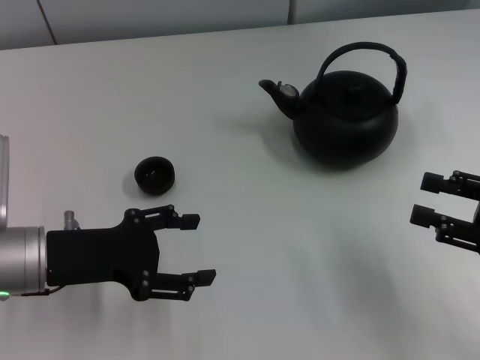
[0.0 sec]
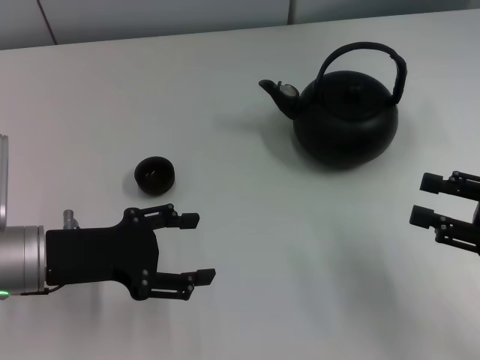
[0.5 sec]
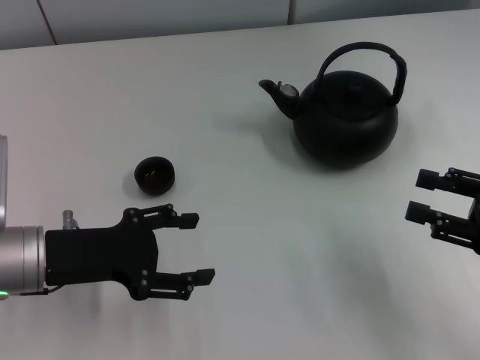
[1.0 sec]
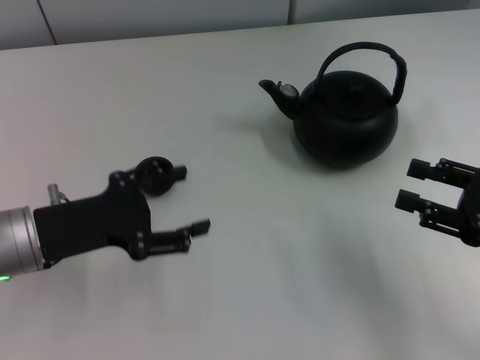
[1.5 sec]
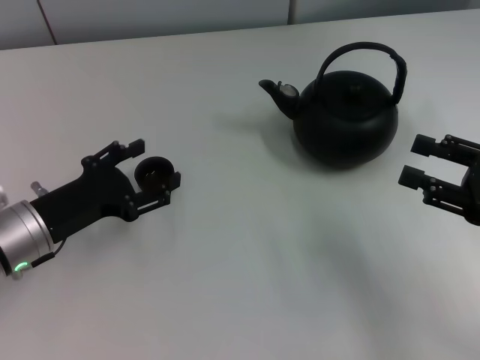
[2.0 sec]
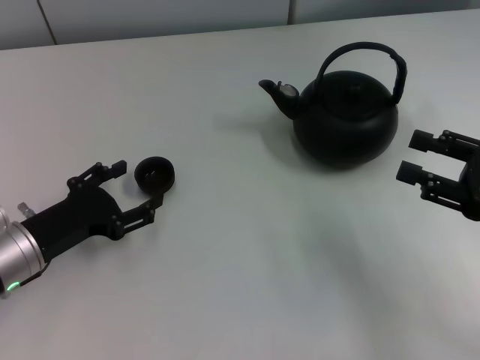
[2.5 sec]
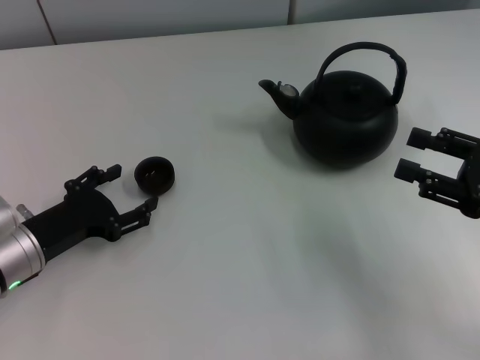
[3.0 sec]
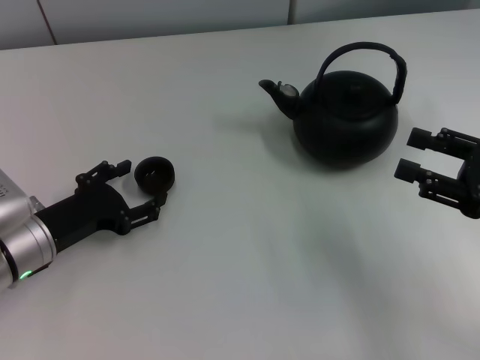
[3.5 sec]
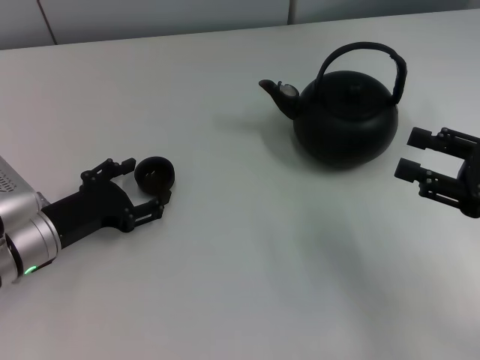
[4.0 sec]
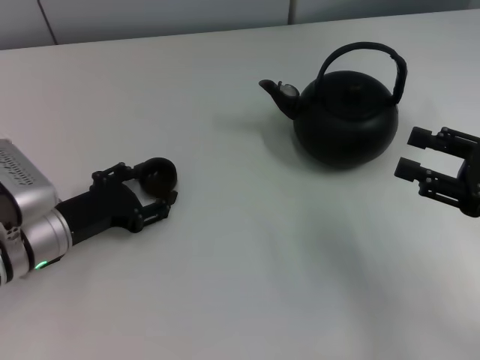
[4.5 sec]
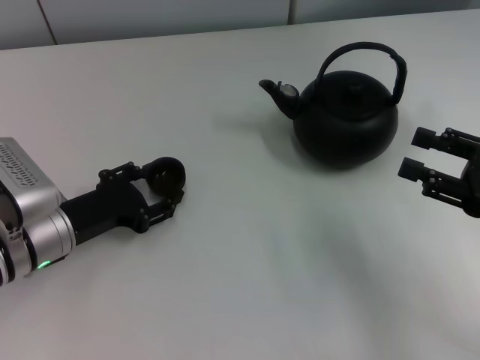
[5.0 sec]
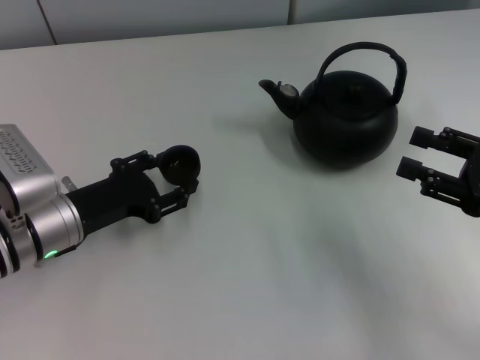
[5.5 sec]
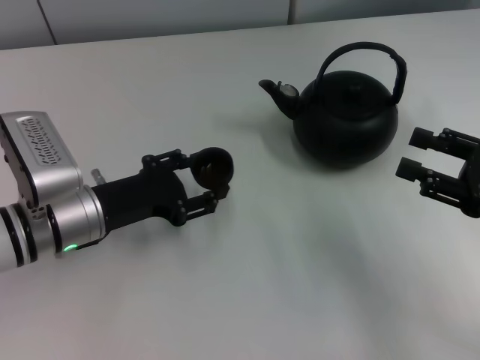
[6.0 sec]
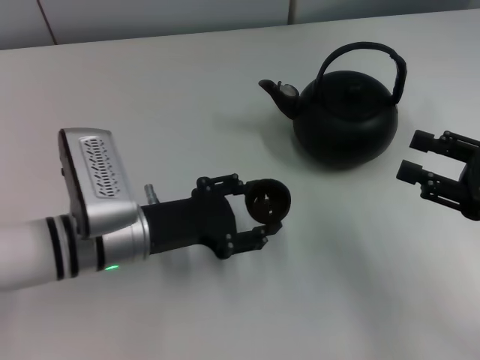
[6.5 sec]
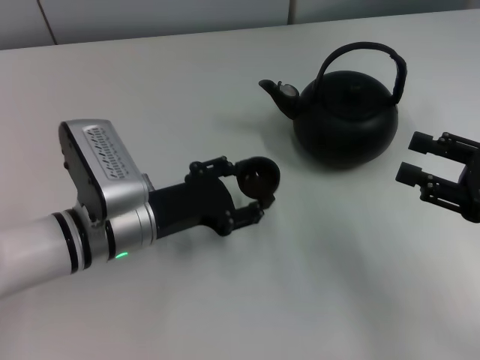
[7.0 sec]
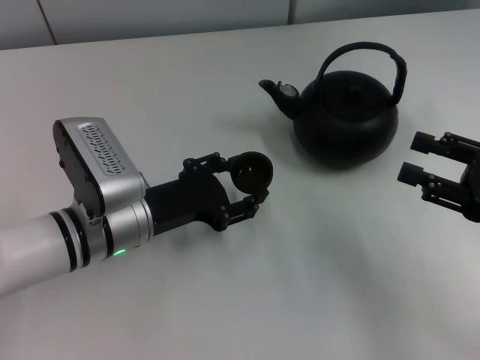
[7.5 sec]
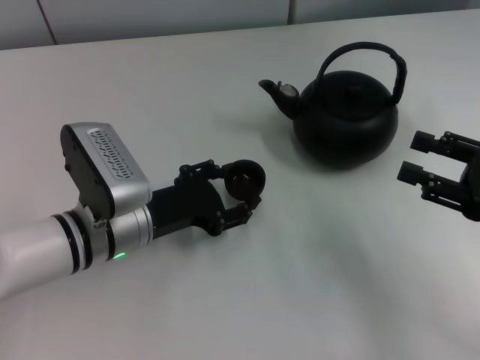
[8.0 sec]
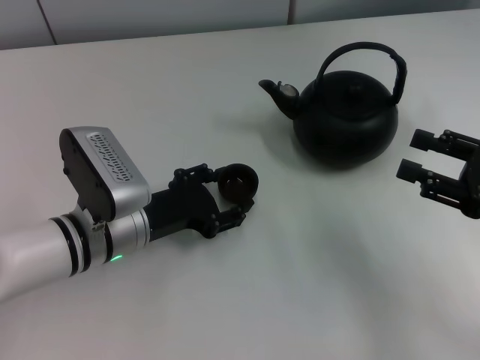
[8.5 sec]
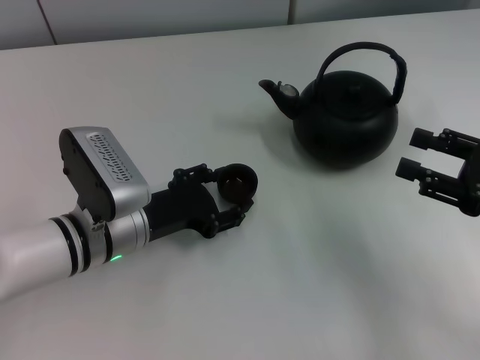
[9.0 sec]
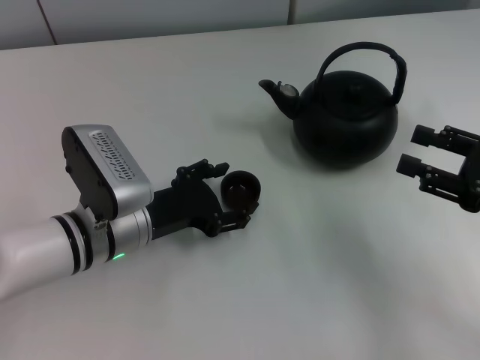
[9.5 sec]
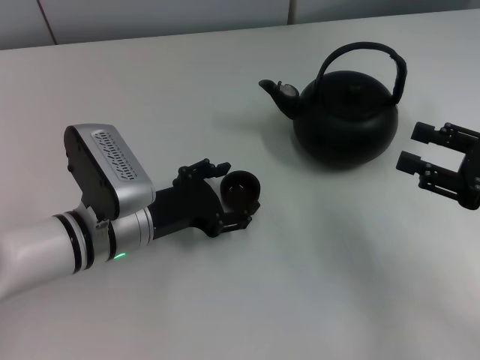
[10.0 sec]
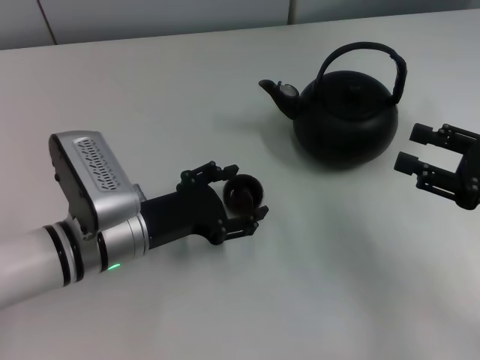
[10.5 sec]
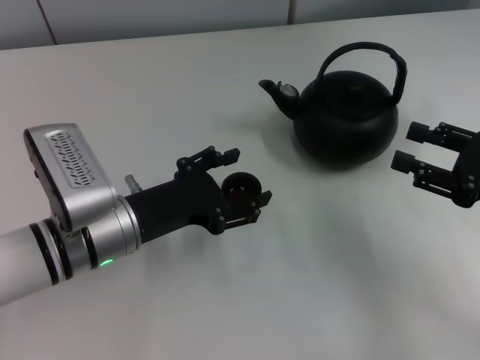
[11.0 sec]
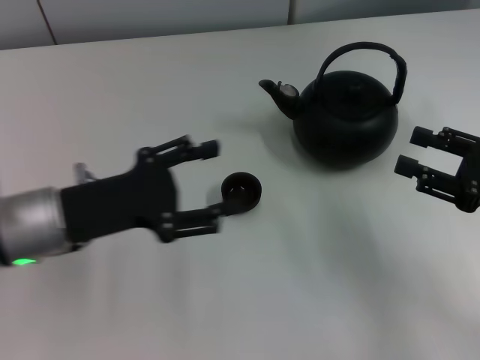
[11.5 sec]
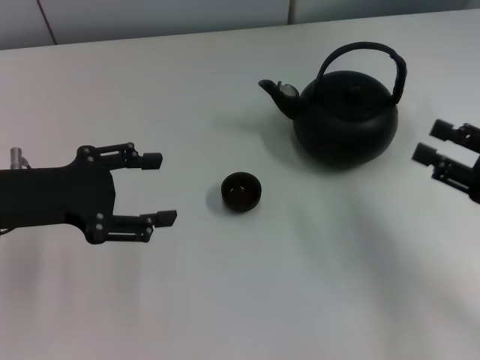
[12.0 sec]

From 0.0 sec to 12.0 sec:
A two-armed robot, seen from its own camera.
Task of the whole recording: Grasp the handle of the teapot with one hand and pour tea into the teacup.
Step, from 0.0 sec to 5.5 sec: Pick up the teacup with the left gripper.
Step, from 6.0 sec to 10.5 sec: Place the teacup in the center of view with the left gripper.
From 2.0 sec to 4.0 sec: The left gripper closes.
From 4.0 sec to 6.0 sec: The left gripper changes place by some 5 cm.
From 6.0 sec to 8.0 sec: The grippers move only a little.
From 8.0 sec to 10.0 sec: The left gripper opens up.
From 10.0 sec to 12.0 sec: The left gripper goes about 15 cm to the left and upward.

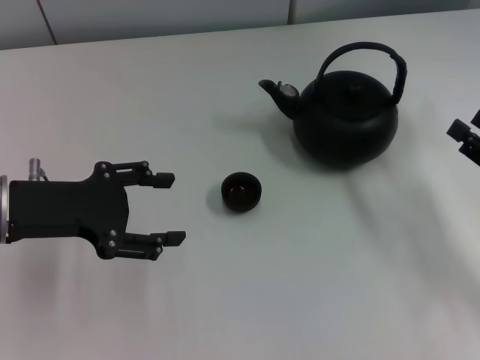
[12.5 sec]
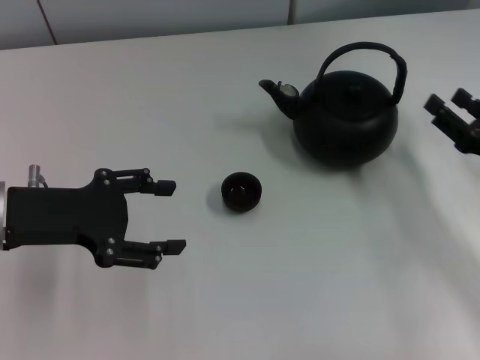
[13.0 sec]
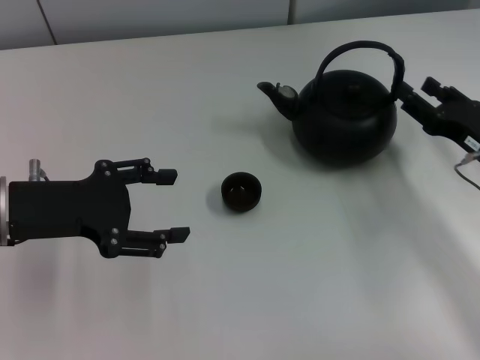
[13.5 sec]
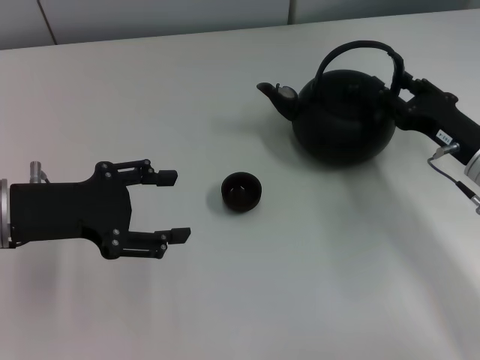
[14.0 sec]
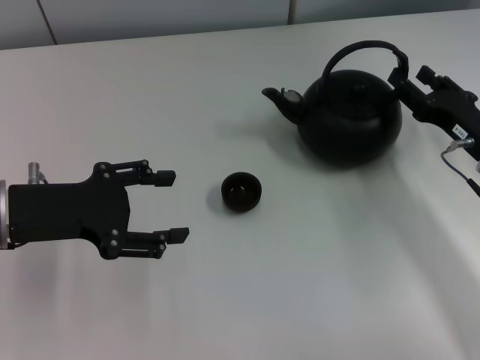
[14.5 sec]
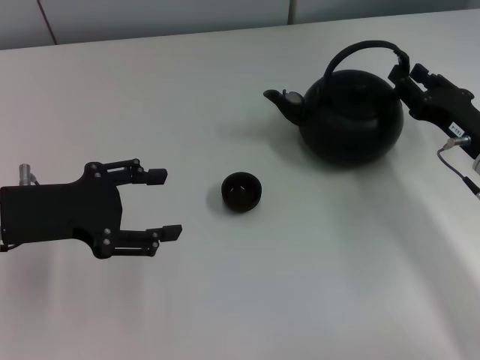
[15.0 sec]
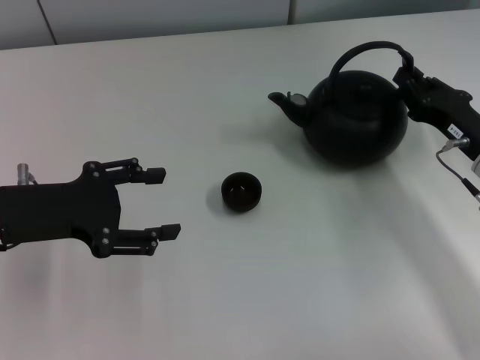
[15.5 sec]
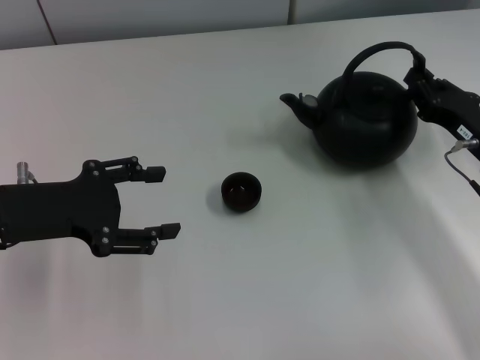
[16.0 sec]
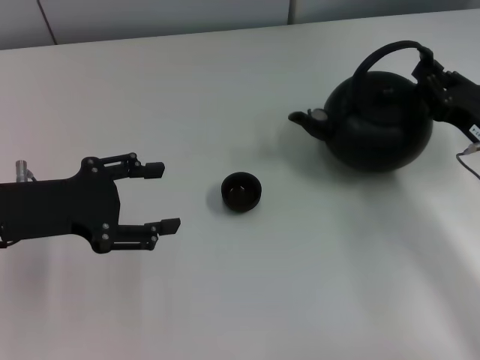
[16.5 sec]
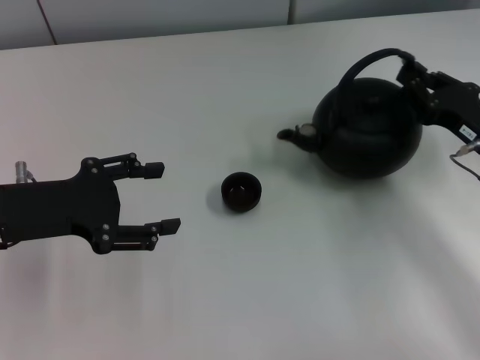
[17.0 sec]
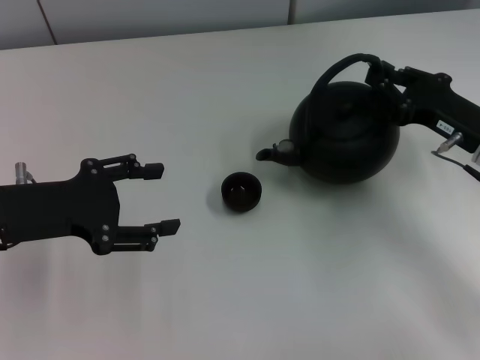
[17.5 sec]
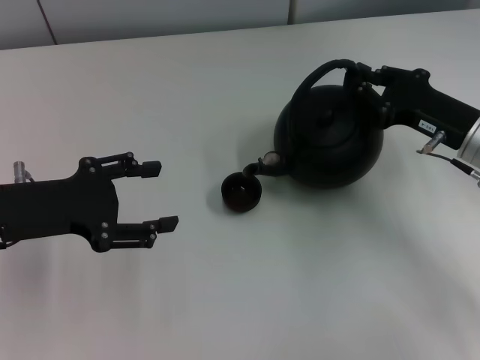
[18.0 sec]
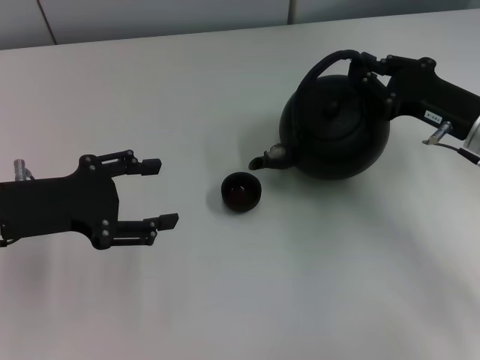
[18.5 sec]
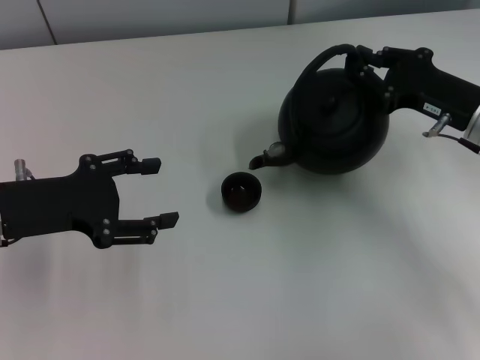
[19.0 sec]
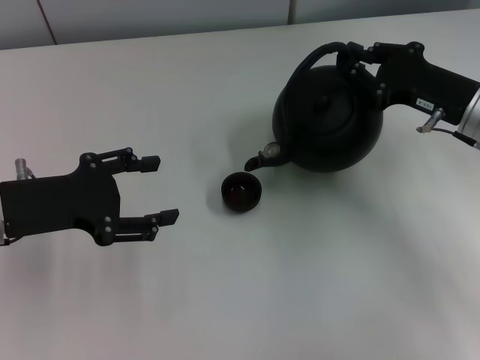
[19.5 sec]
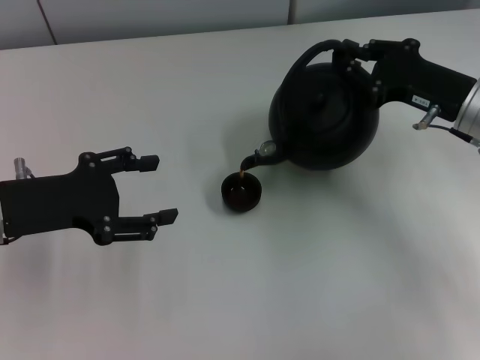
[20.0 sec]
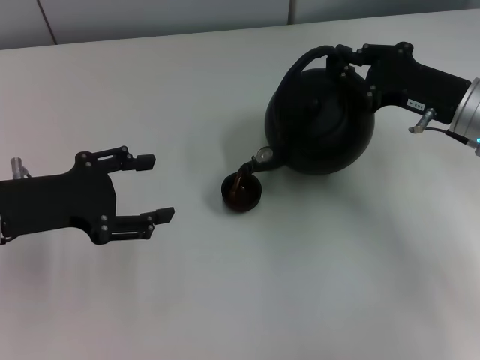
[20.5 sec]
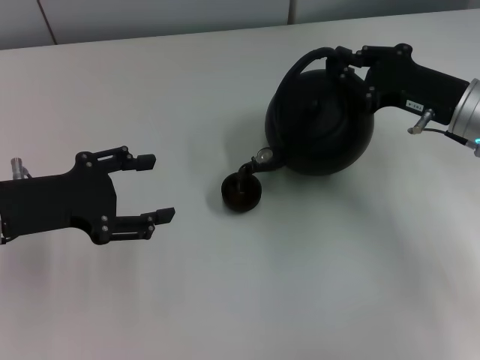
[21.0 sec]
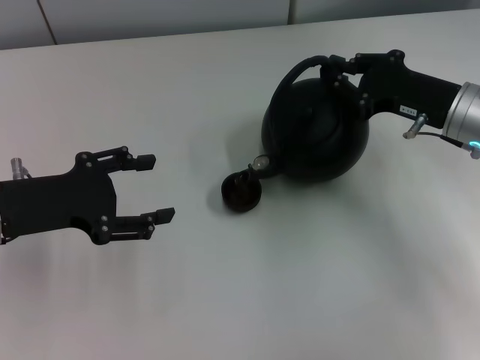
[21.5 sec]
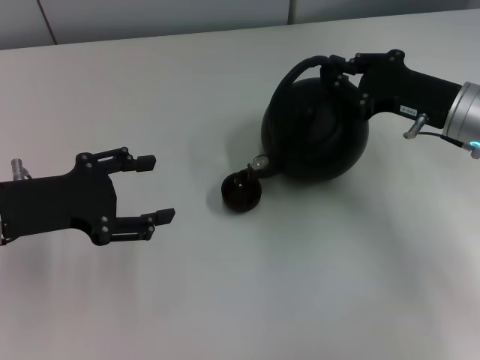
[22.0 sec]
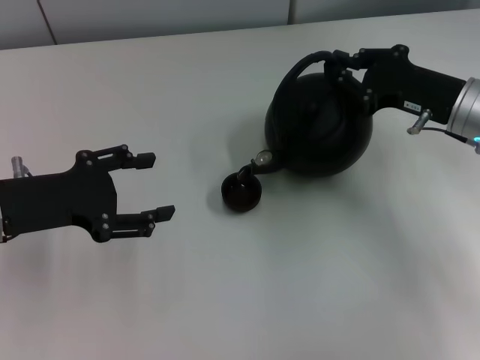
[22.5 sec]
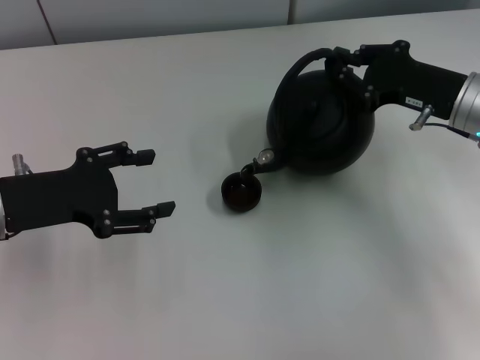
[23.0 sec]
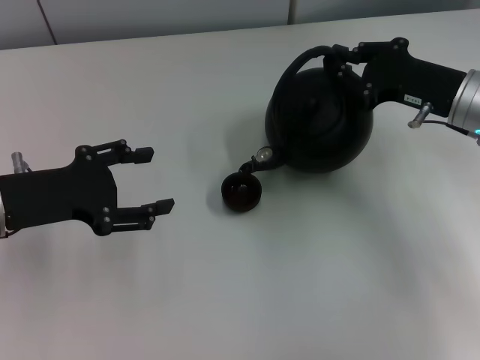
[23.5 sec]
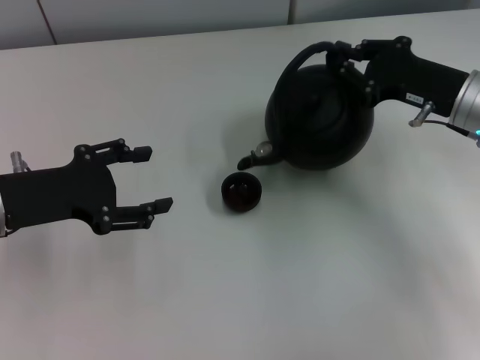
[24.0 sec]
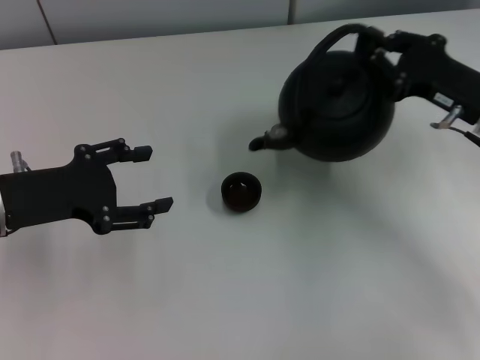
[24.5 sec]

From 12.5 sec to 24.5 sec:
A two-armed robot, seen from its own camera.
Task of the whole recording: Grasp the handle of the teapot with one hand and pour tea into the teacup.
Step, from 12.5 sec to 17.5 sec: Pick up the teapot with the right gripper.
From 12.5 sec to 14.5 sec: The right gripper is displaced forward and to the left by roughly 10 cm.
From 14.5 sec to 16.5 sec: The right gripper closes its fingers.
From 16.5 sec to 18.5 sec: The right gripper shifts by roughly 5 cm.
From 18.5 sec to 20.5 sec: The grippers move only a little.
From 20.5 sec to 22.5 sec: Both grippers stay about where they are.
From 22.5 sec to 24.5 sec: The grippers make only small movements.

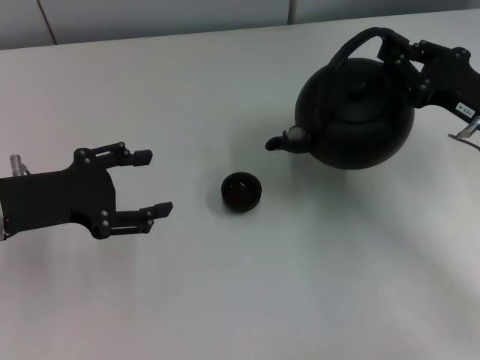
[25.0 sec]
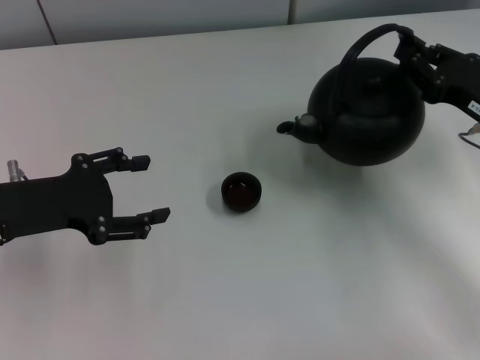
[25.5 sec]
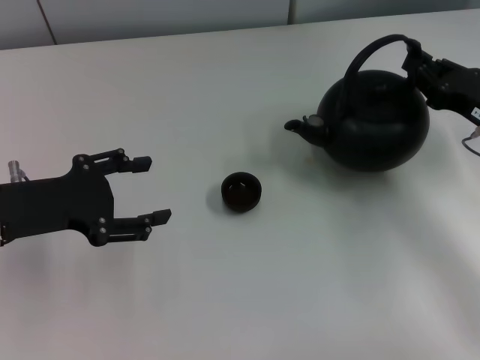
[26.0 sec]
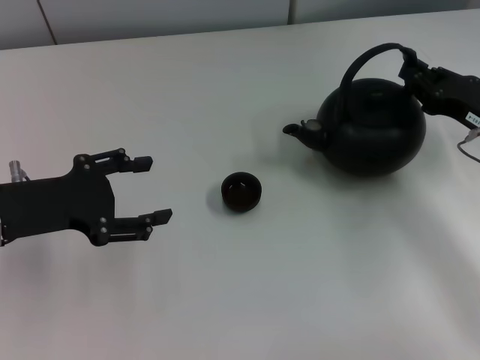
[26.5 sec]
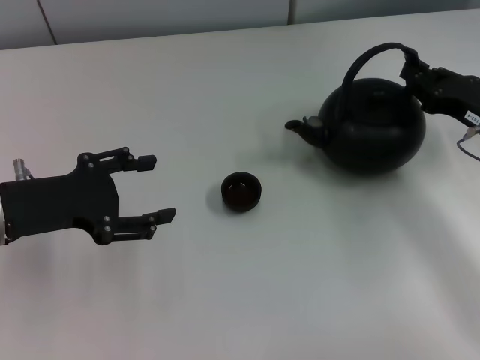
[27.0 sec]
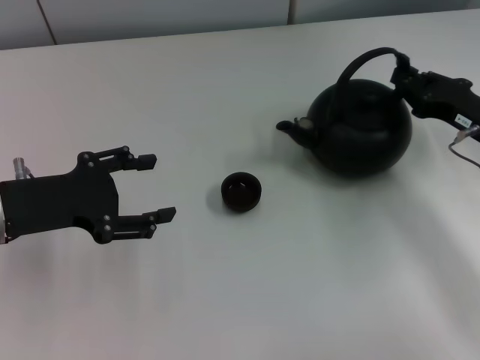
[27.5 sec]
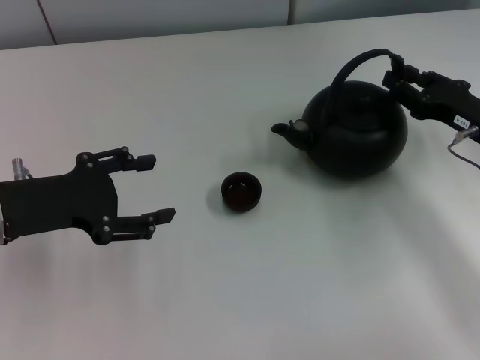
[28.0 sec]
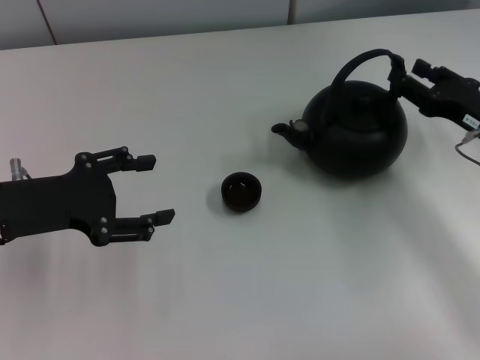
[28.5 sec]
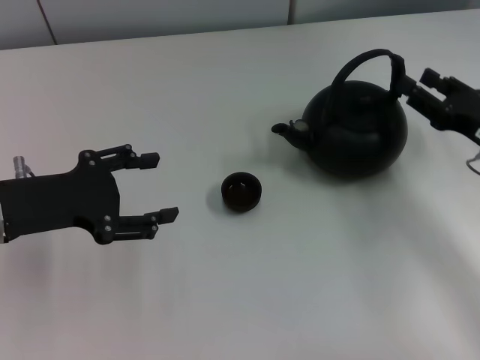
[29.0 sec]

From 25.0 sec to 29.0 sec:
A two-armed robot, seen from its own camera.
Task of the whole recording: Grasp the handle of the teapot with one hand and pour tea into the teacup.
From 25.0 sec to 27.0 sec: The grippers make only small movements.
From 27.0 sec to 29.0 sec: The right gripper opens its fingers.
